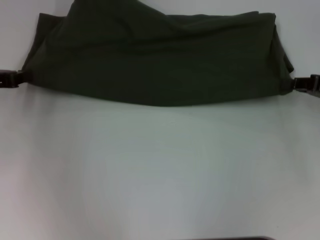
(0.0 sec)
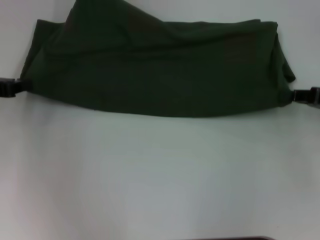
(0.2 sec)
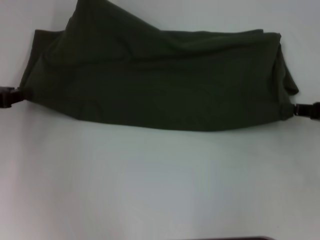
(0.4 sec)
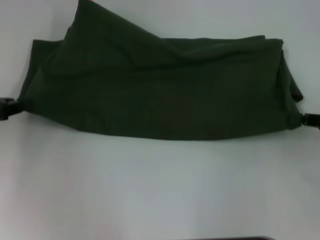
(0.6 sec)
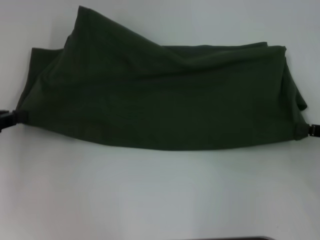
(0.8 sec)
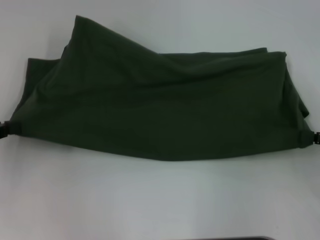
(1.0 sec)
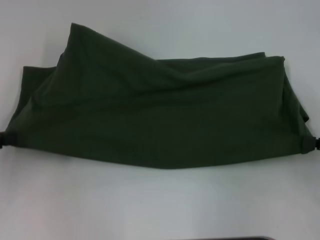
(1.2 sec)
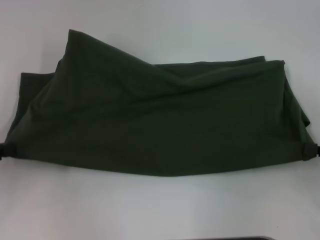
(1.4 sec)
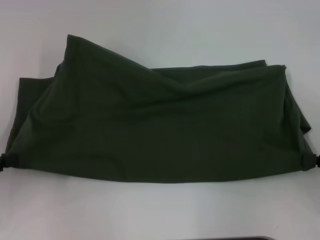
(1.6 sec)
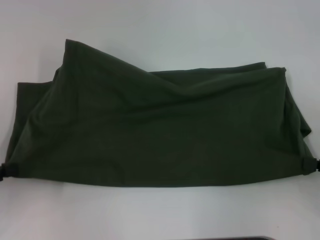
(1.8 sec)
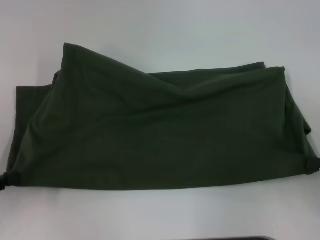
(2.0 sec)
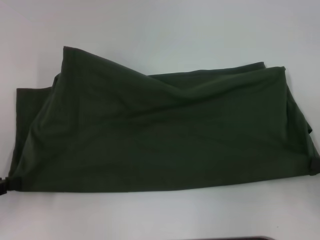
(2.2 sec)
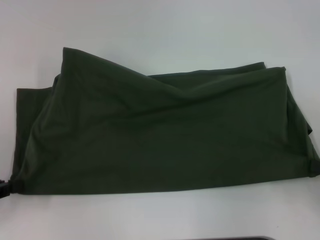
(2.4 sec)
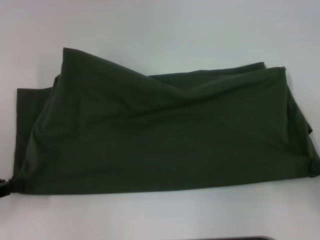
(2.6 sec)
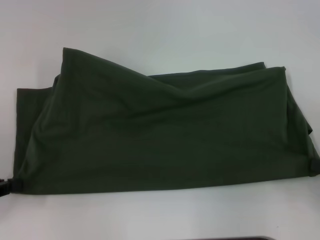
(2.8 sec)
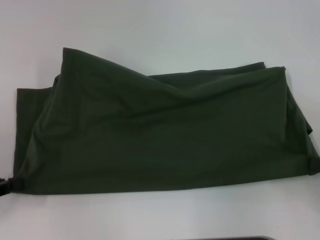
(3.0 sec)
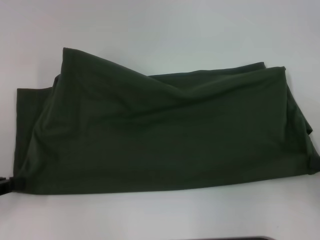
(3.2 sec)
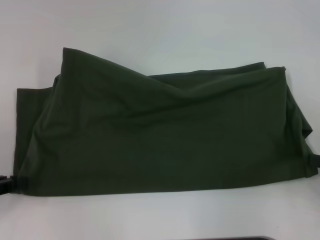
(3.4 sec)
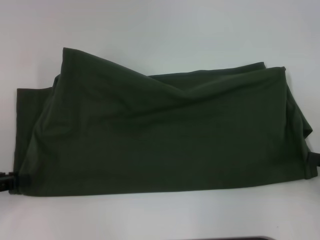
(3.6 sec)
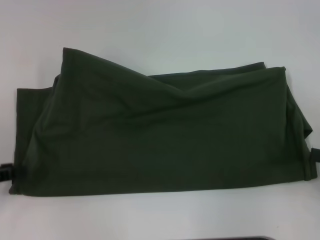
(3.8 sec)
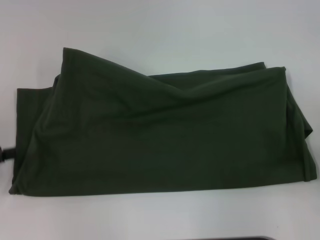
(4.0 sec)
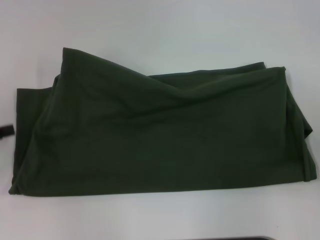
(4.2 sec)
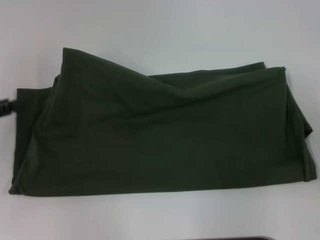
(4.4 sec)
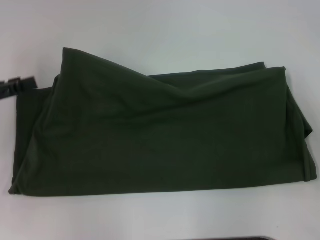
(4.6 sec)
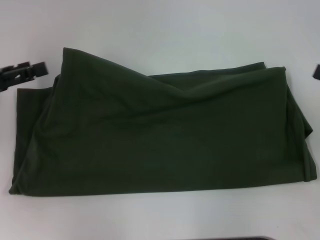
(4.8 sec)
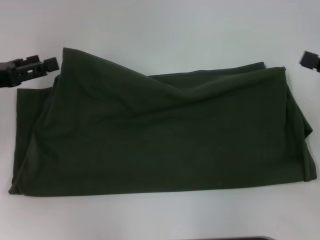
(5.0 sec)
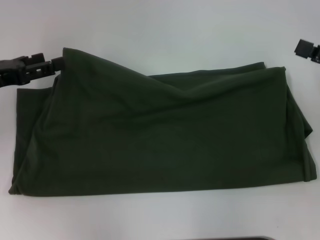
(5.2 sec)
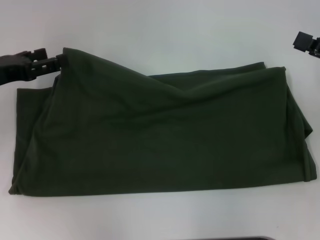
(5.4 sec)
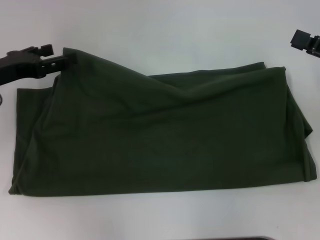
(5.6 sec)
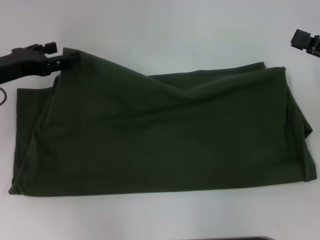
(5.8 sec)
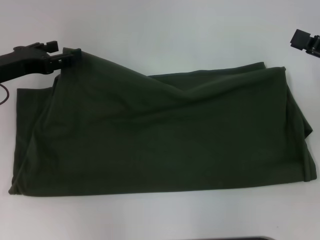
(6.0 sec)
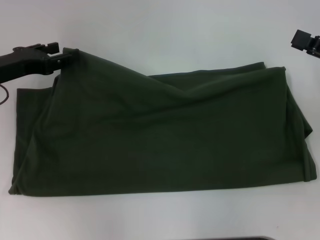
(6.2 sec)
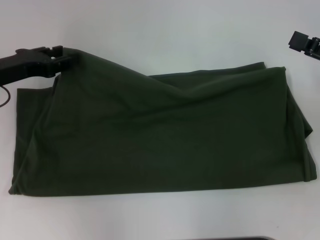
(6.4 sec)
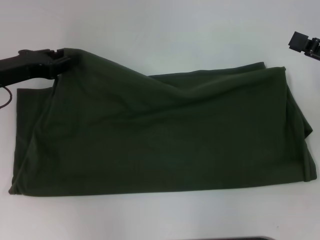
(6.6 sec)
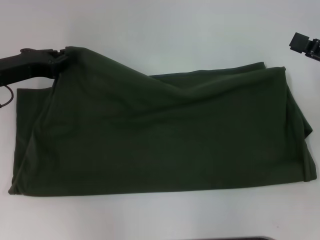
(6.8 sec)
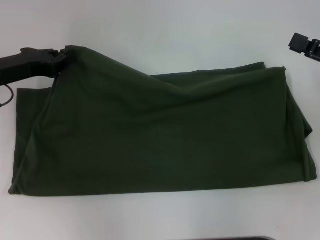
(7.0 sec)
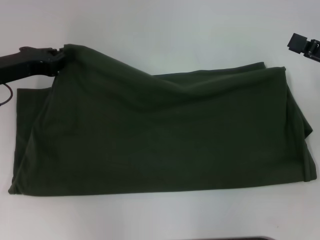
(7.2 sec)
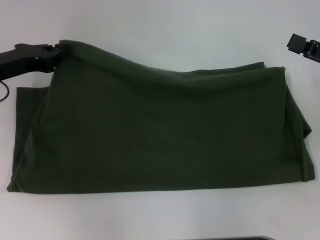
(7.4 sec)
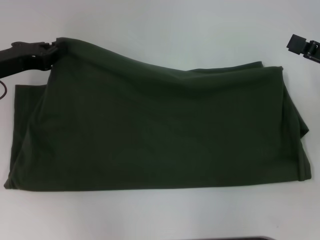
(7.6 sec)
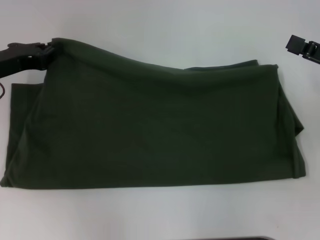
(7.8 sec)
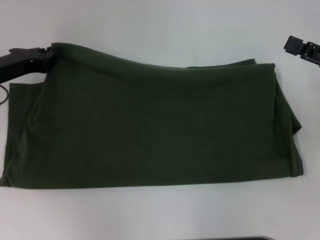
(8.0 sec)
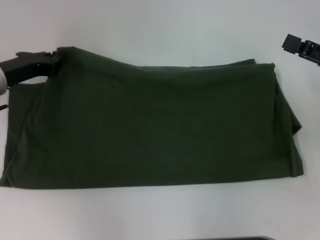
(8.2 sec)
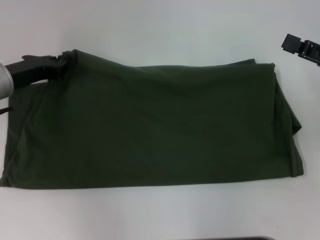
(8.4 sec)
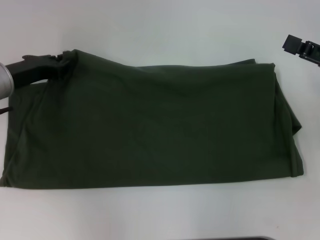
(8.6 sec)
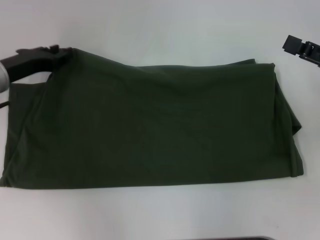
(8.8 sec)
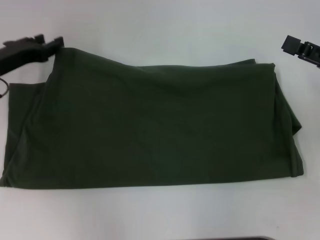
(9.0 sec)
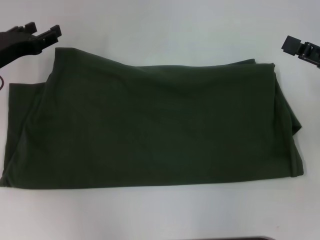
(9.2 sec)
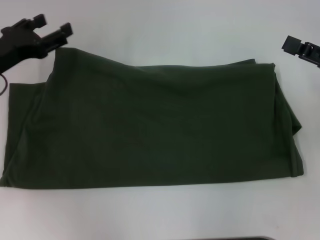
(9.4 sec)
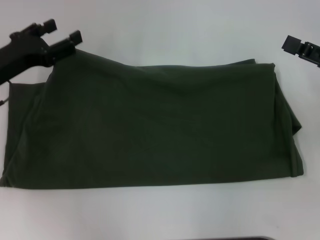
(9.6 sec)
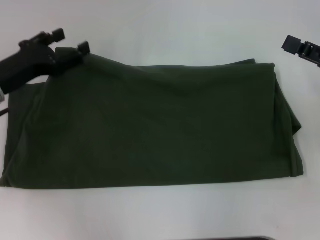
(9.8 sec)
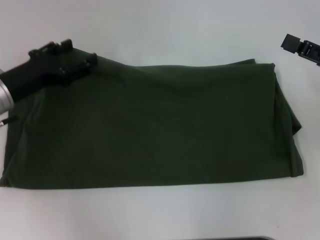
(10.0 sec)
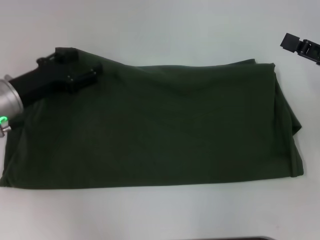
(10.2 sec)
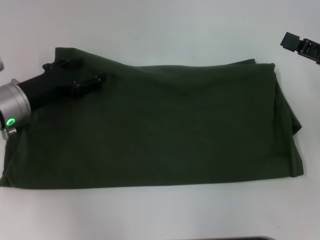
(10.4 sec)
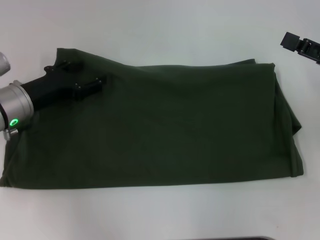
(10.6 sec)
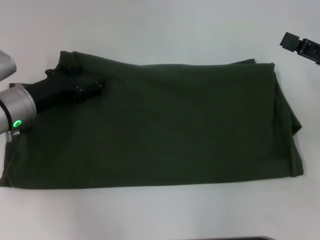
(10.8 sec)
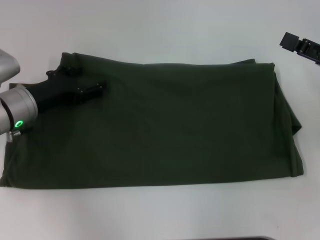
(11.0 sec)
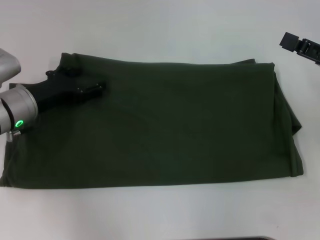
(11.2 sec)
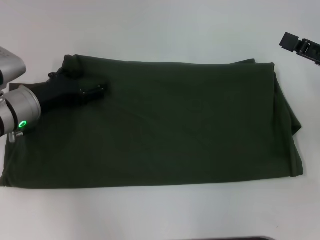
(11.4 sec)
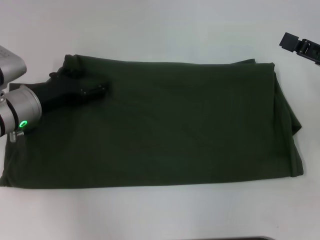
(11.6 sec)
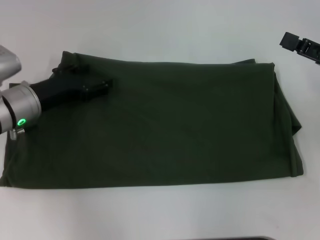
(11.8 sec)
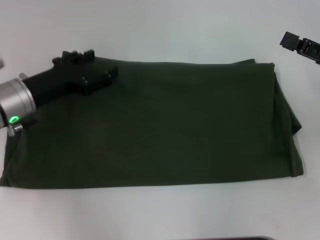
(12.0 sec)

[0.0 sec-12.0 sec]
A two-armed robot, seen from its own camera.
0.0 sec to 1.6 sec: The grippers both shift backward by roughly 10 cm.
1.6 sec to 3.0 sec: The grippers move only a little.
3.0 sec to 4.4 sec: The right gripper moves some 5 cm, and opens its fingers; the left gripper heads forward, covering approximately 5 cm, and opens up.
4.4 sec to 6.0 sec: The left gripper moves forward and to the right, approximately 10 cm; the right gripper moves forward and to the left, about 10 cm, and opens up.
6.0 sec to 7.6 sec: The left gripper closes up.
7.6 sec to 9.0 sec: The grippers make only small movements.
9.0 sec to 10.4 sec: The left gripper changes place by some 5 cm, and opens.
10.4 sec to 12.0 sec: There are only small adjustments of the grippers.

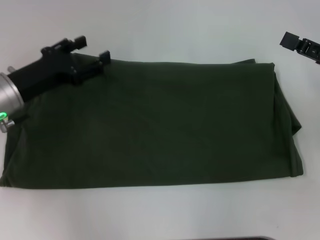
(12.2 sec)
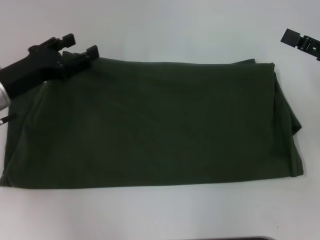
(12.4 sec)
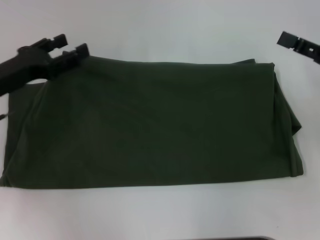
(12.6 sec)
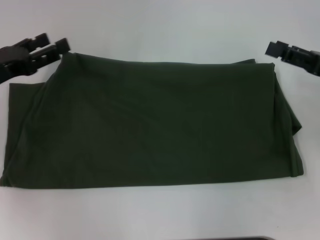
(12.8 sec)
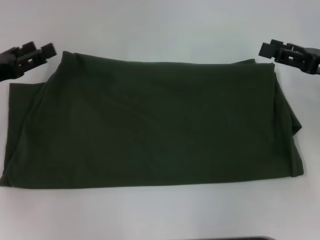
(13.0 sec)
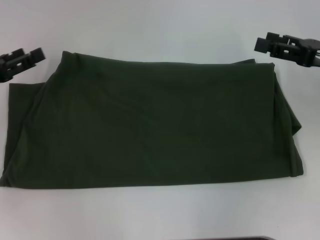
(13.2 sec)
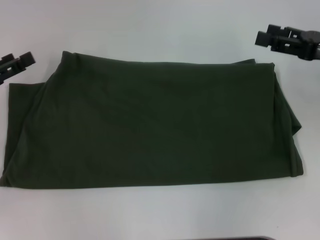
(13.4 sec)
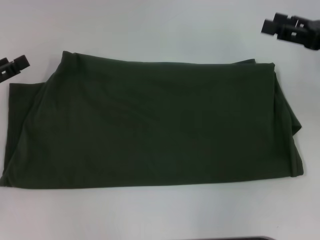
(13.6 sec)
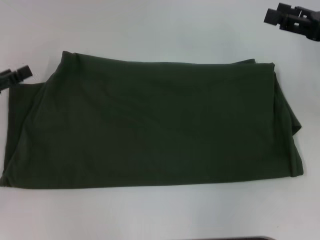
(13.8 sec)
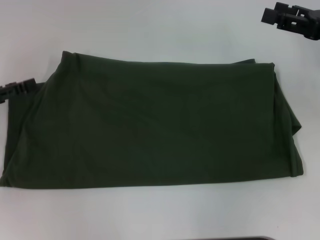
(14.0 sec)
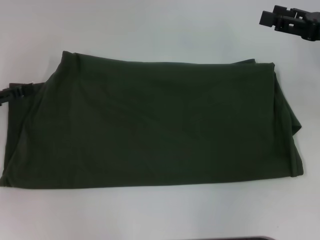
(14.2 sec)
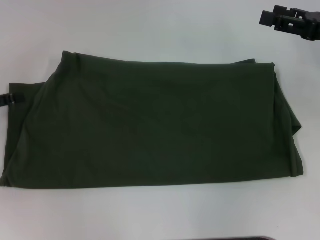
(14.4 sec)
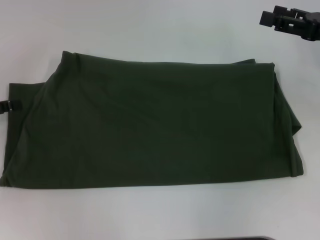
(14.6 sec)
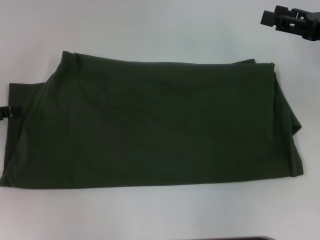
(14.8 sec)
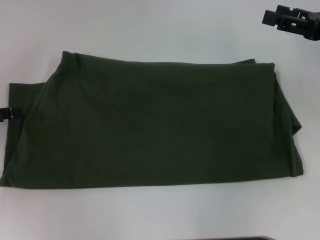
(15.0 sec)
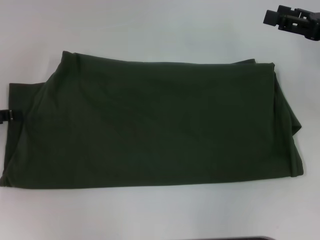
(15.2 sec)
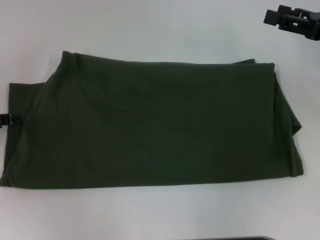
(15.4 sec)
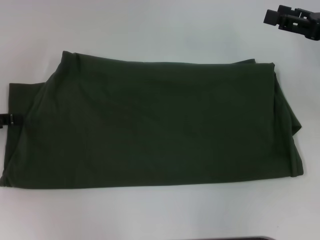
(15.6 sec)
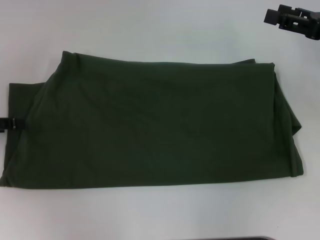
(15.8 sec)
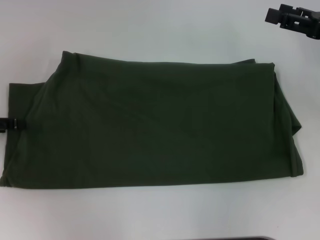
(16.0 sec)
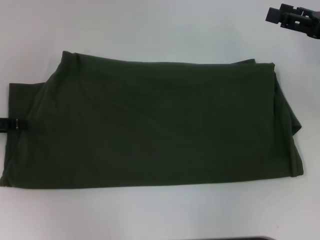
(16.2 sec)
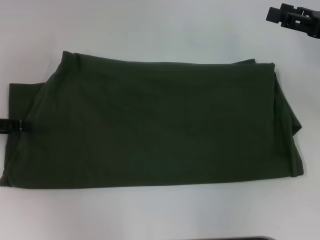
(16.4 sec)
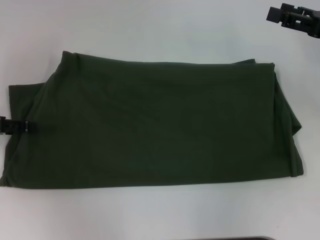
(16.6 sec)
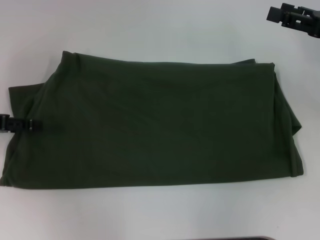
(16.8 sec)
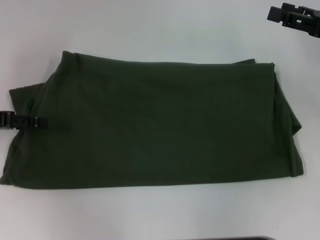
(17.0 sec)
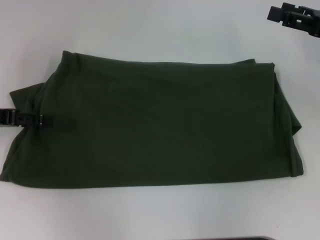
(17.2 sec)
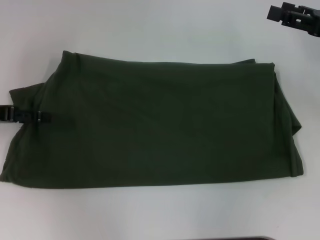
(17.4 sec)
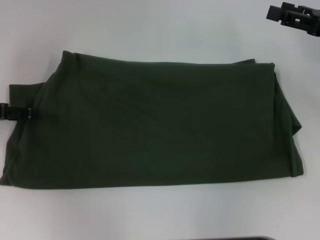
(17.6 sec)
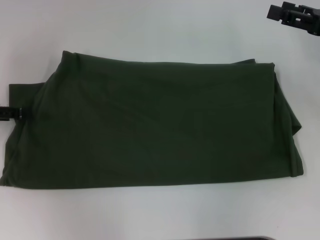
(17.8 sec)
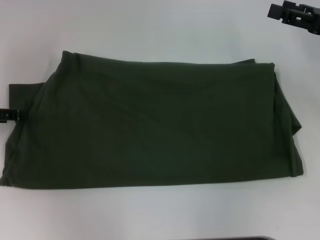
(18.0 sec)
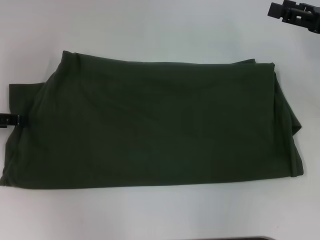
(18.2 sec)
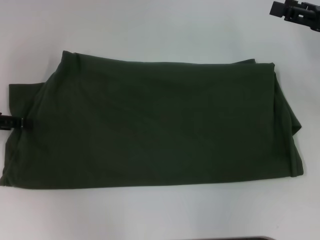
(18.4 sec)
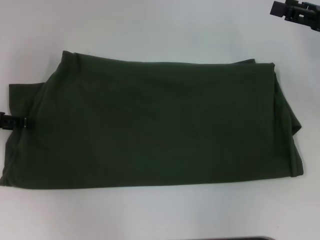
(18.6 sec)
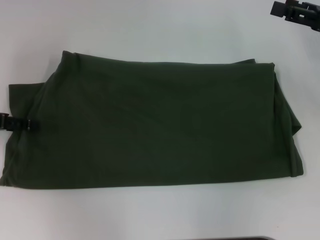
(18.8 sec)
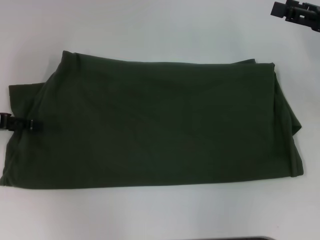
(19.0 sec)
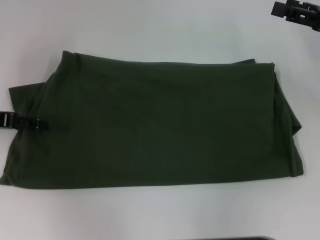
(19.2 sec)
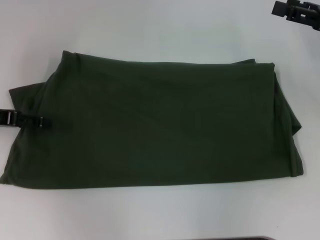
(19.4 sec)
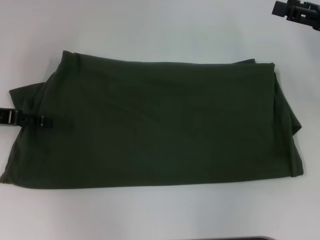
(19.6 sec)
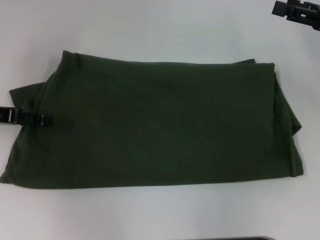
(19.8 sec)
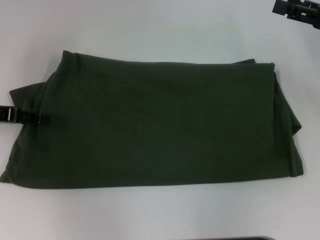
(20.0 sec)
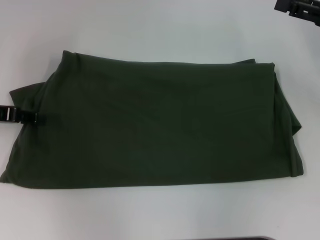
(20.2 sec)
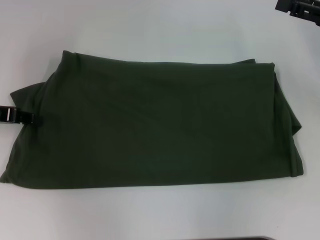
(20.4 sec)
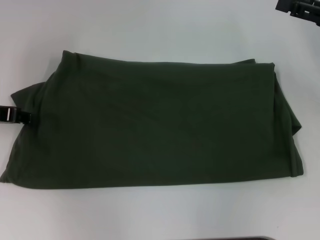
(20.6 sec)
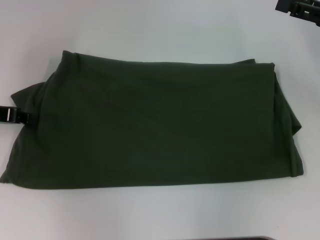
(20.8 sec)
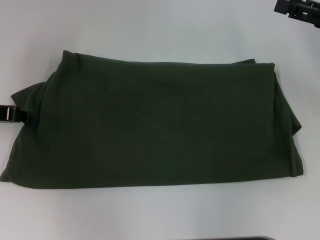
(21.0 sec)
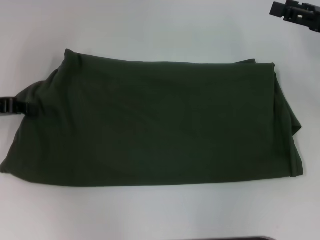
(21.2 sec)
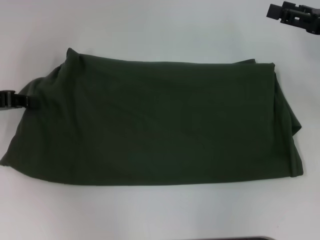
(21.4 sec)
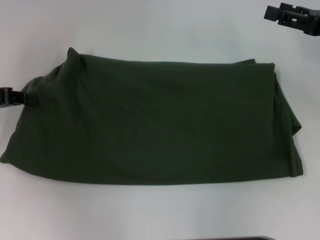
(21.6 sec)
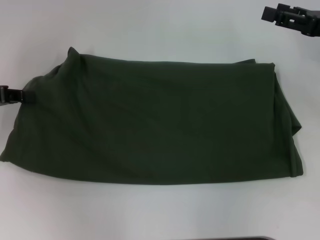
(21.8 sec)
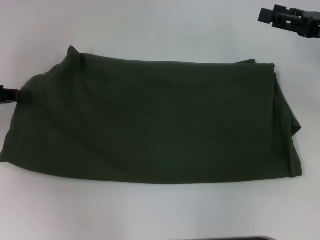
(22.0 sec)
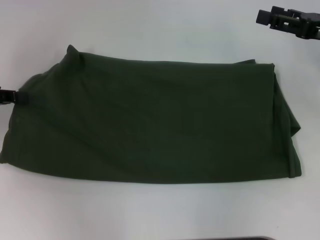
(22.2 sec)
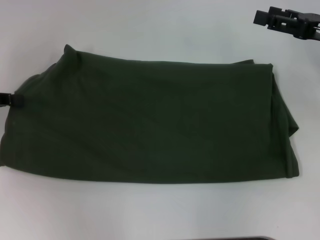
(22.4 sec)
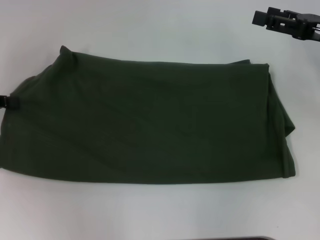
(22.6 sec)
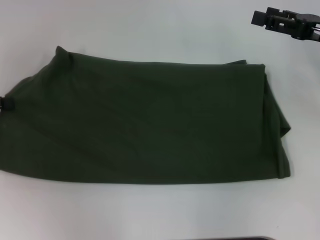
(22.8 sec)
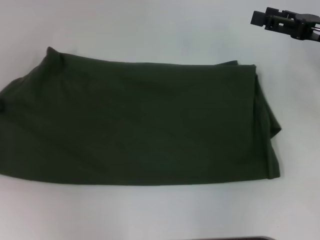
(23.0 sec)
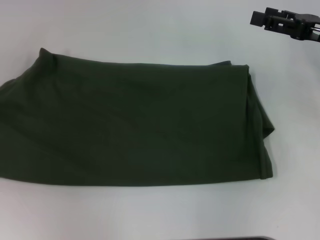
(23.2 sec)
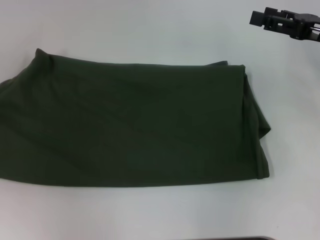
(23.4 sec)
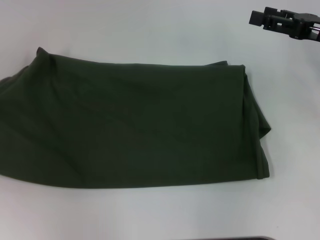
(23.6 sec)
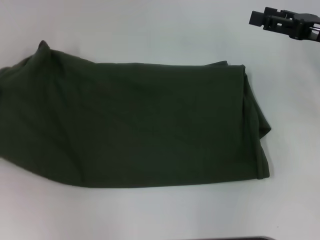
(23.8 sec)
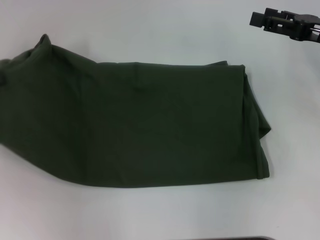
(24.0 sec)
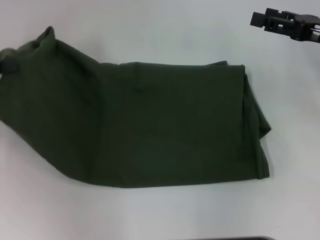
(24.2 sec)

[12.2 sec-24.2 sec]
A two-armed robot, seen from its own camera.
12.2 sec to 13.8 sec: The right gripper travels forward by some 5 cm; the left gripper goes some 10 cm to the left.
15.2 sec to 19.8 sec: The grippers stay close to where they were, moving slightly.
19.8 sec to 21.2 sec: The left gripper closes its fingers.
21.2 sec to 22.6 sec: The grippers move only a little.
22.6 sec to 24.2 sec: There are only small adjustments of the grippers.
